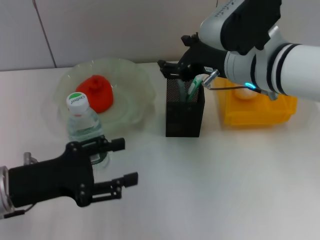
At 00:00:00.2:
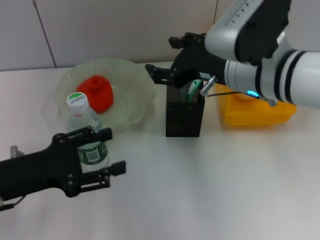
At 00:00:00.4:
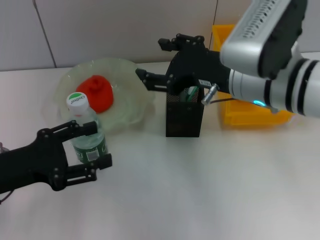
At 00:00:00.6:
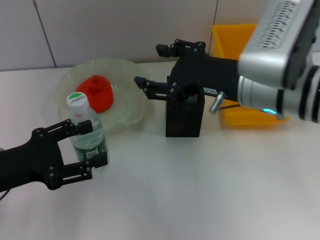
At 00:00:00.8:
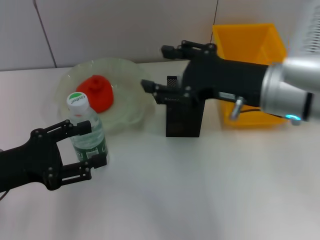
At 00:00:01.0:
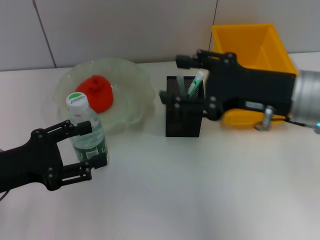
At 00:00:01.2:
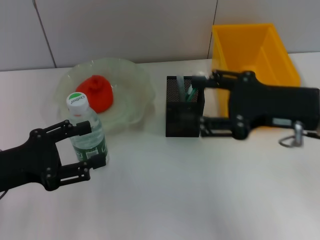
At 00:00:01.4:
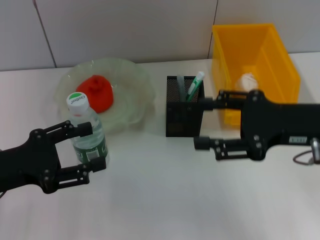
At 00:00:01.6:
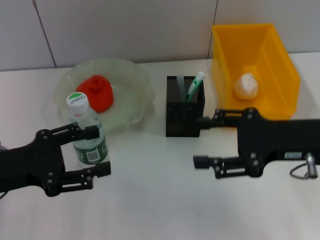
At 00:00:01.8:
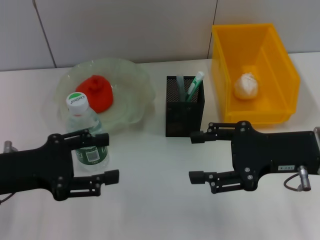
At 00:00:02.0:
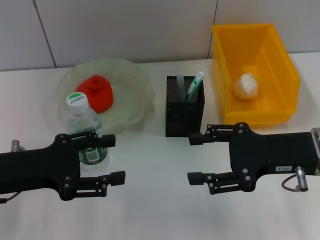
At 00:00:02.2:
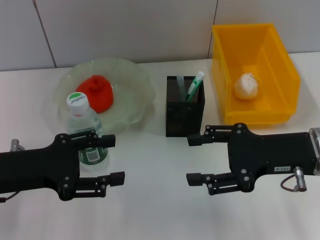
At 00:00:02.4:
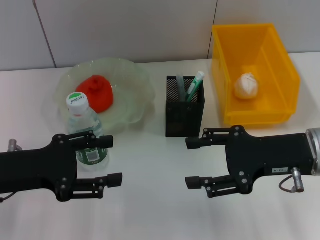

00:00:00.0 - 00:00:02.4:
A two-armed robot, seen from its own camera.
00:00:00.0 - 00:00:01.2: The right gripper goes about 10 cm to the right and backward.
00:00:01.2 - 00:00:02.4: The right gripper shifts about 5 cm downward.
